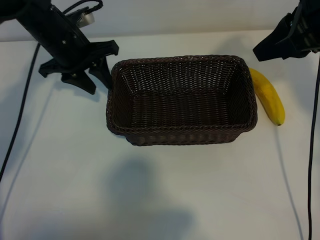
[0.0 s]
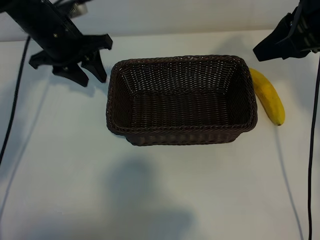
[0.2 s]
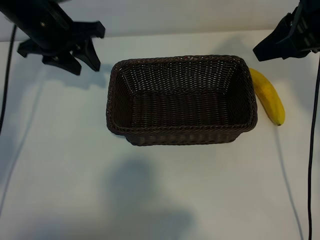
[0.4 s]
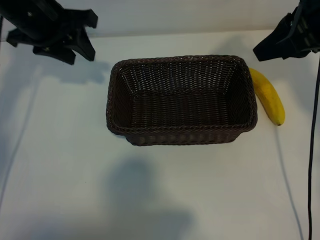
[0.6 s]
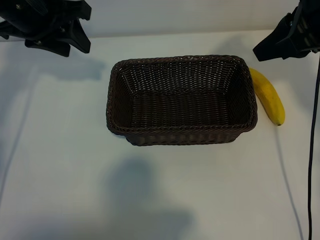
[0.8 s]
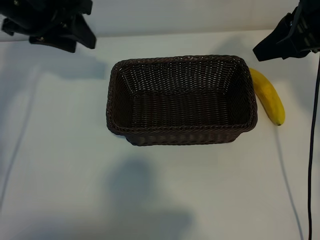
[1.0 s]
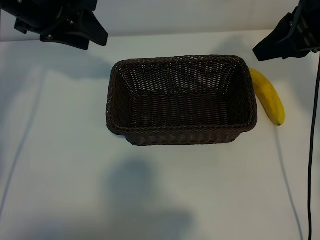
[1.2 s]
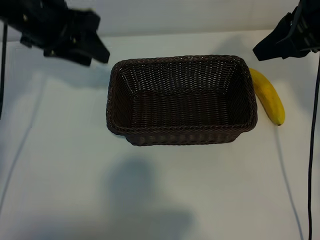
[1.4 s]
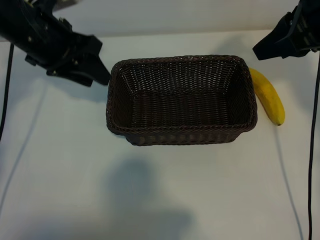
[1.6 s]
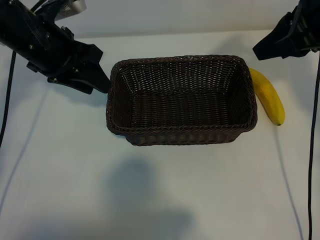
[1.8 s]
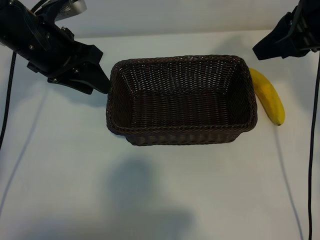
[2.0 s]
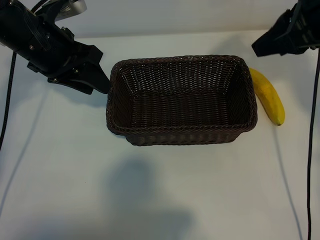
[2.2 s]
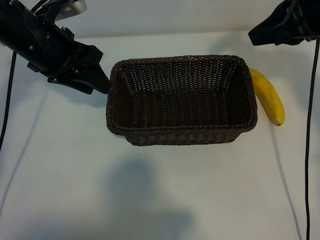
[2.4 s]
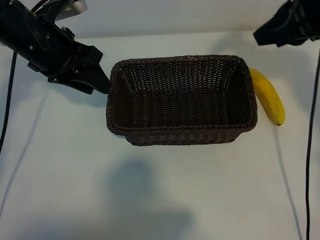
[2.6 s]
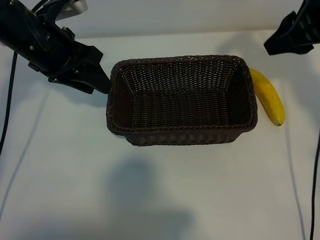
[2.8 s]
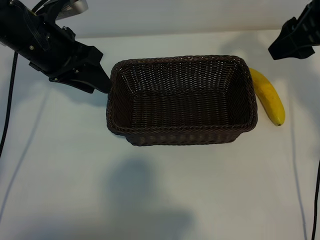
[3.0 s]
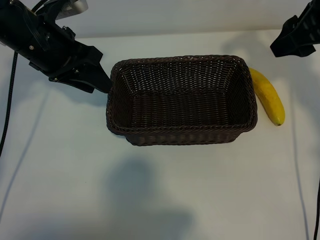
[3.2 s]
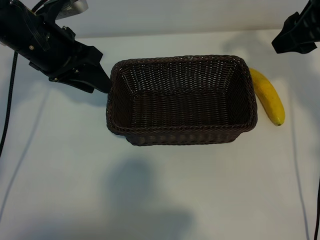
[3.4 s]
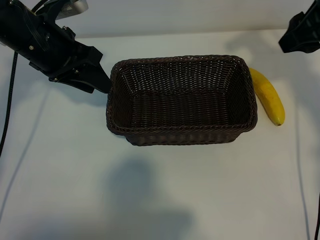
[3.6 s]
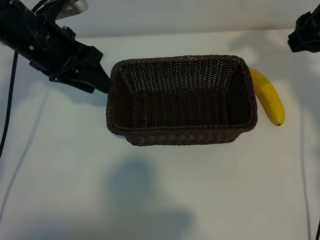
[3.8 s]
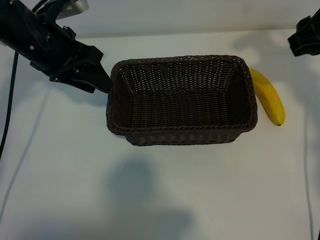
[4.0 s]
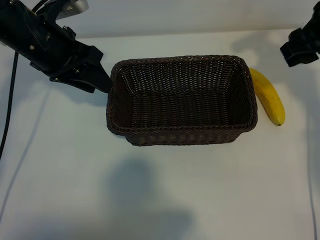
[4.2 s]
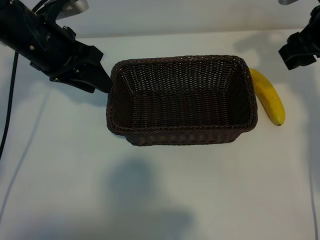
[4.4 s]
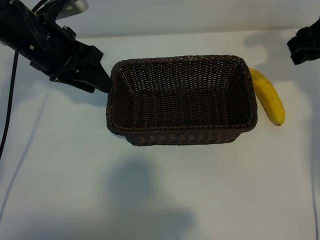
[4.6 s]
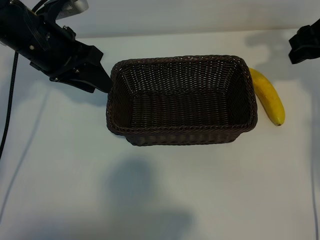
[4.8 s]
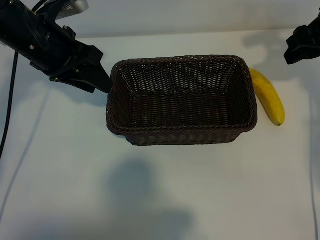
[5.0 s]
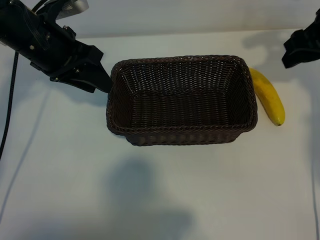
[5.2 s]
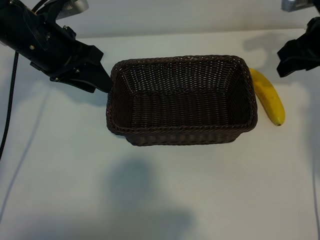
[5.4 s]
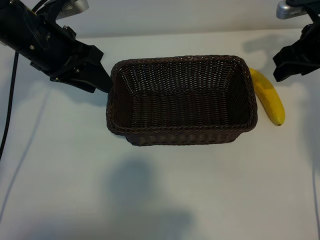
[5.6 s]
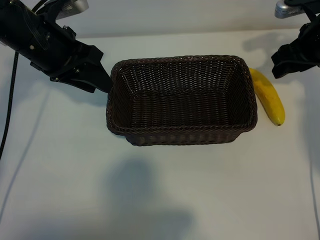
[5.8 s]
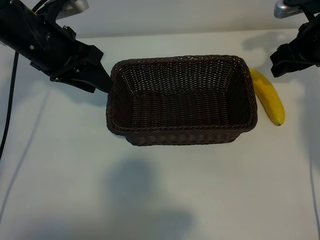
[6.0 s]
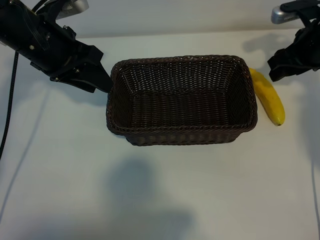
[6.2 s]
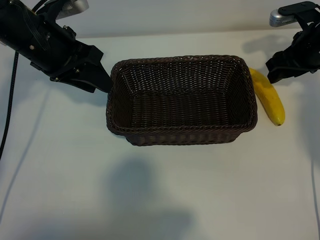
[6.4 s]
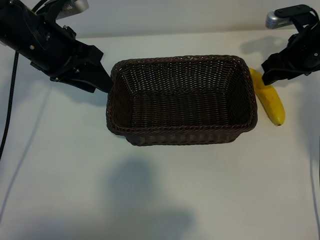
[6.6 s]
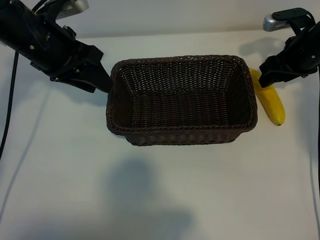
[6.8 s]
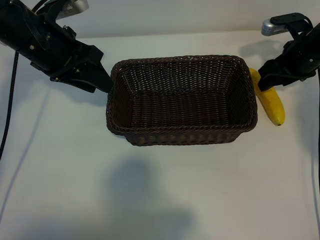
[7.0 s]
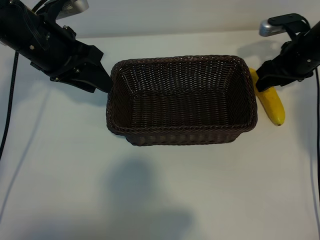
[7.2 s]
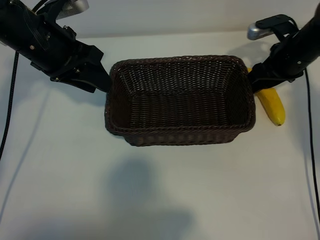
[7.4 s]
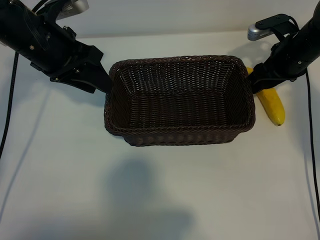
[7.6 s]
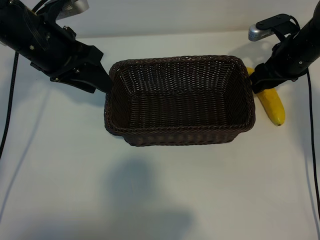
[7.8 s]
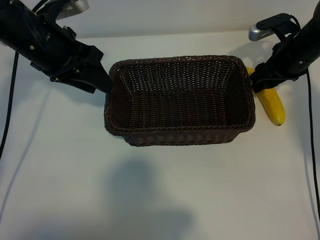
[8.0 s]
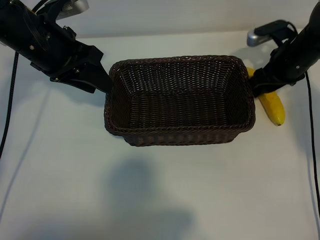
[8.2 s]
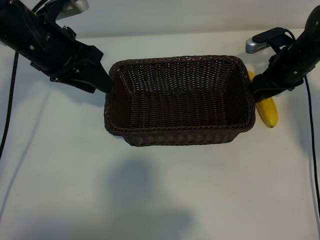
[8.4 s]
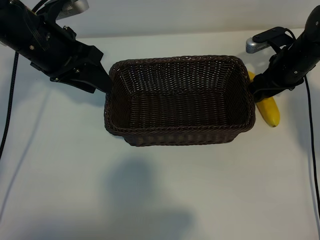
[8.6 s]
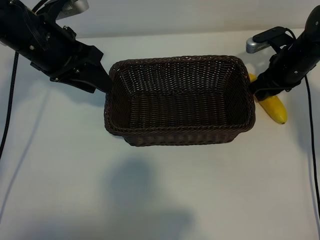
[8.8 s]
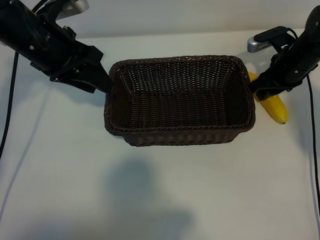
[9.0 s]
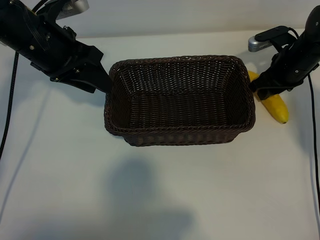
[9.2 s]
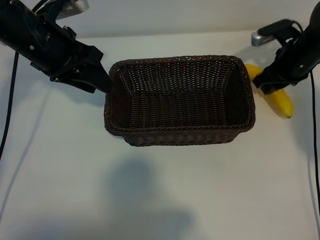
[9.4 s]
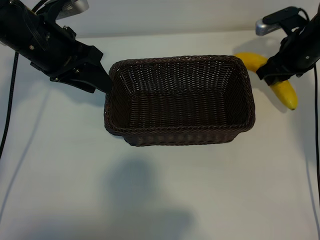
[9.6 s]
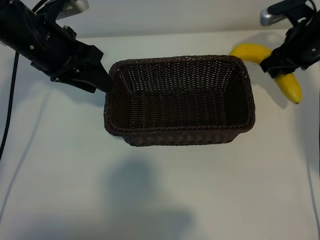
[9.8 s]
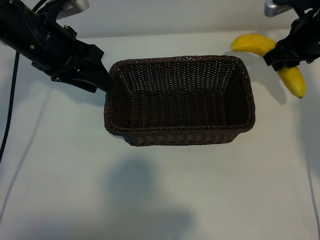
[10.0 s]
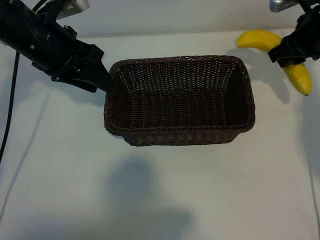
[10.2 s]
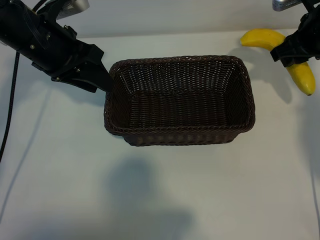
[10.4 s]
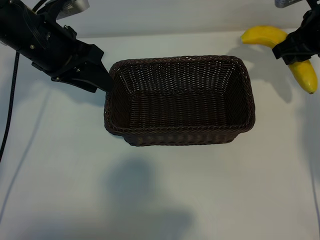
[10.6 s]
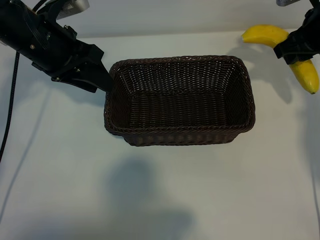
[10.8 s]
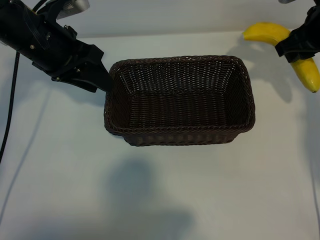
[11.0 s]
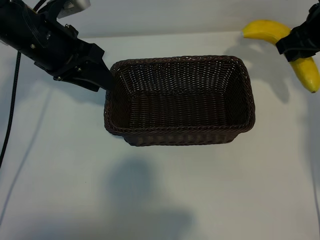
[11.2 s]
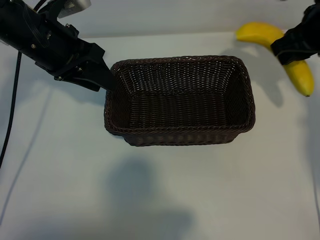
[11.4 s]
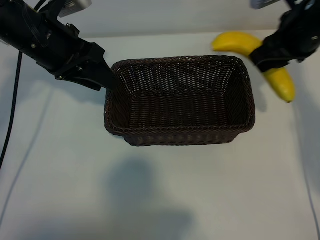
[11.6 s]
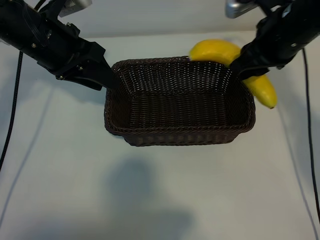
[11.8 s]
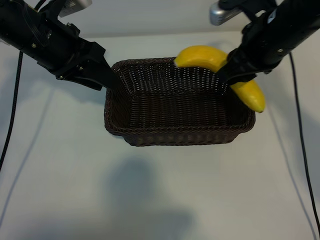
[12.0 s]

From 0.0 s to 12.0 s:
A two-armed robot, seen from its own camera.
Task of the whole recording: pick up the banana and put it into the basket.
Step, from 0.0 s to 8.8 s: Grasp the banana with right gripper.

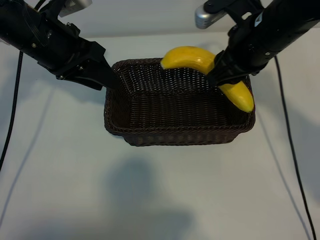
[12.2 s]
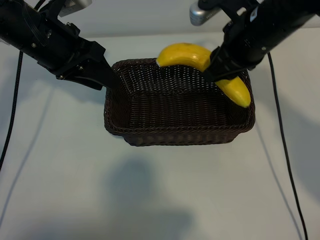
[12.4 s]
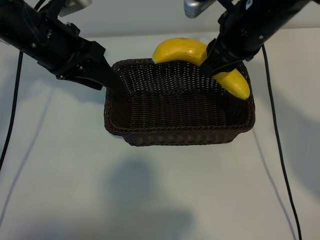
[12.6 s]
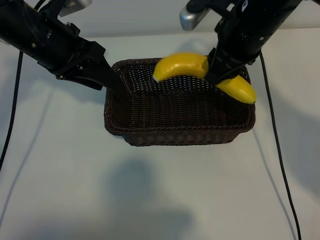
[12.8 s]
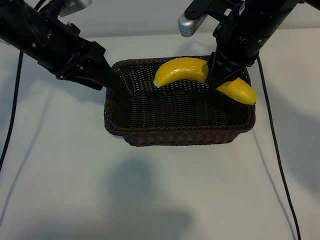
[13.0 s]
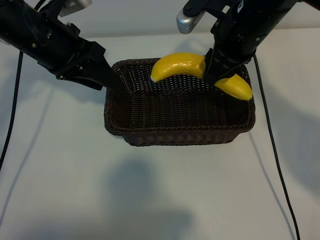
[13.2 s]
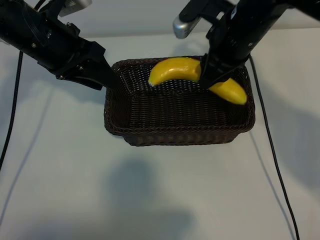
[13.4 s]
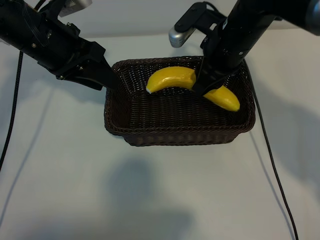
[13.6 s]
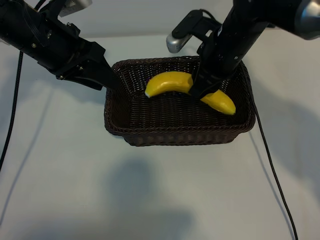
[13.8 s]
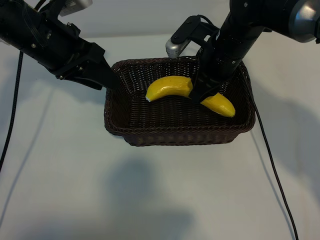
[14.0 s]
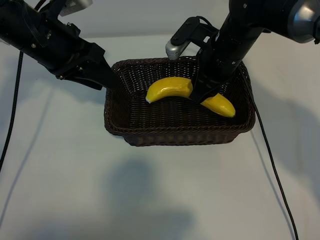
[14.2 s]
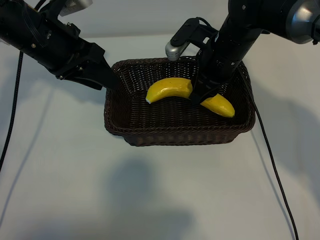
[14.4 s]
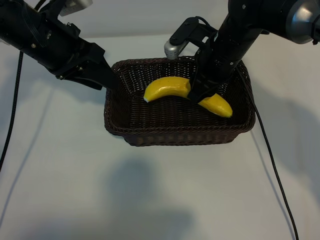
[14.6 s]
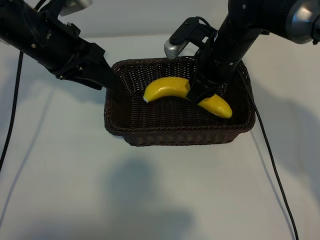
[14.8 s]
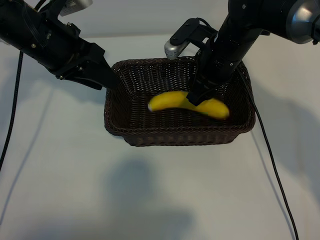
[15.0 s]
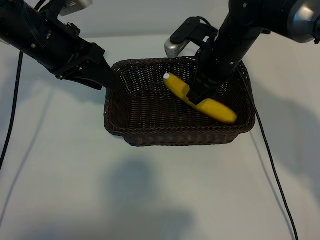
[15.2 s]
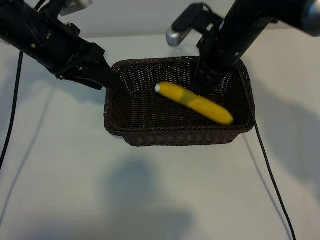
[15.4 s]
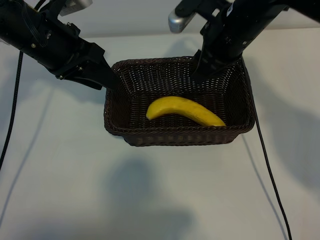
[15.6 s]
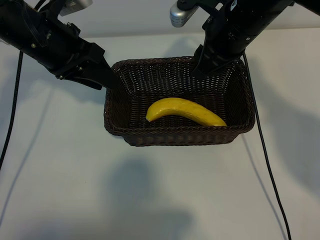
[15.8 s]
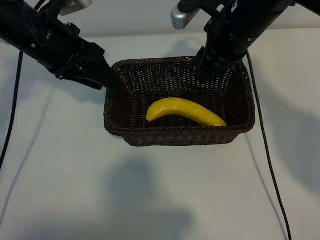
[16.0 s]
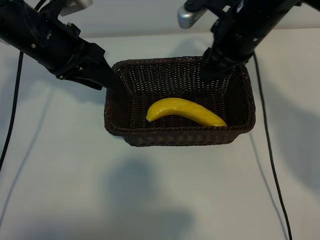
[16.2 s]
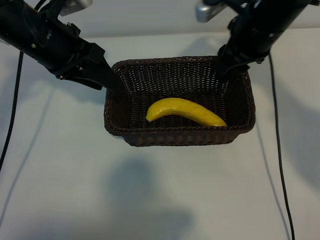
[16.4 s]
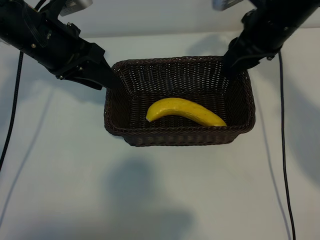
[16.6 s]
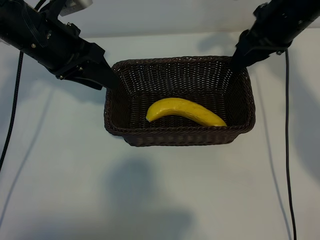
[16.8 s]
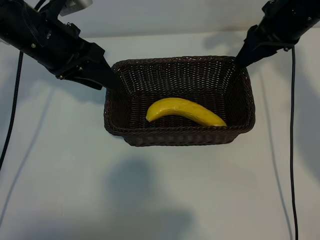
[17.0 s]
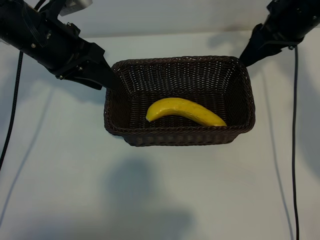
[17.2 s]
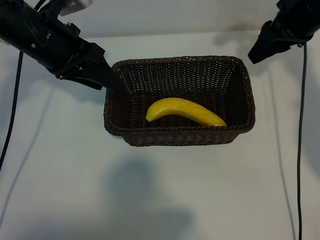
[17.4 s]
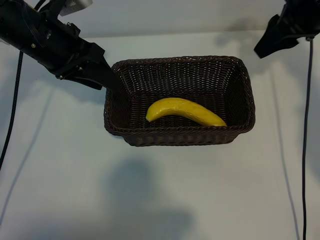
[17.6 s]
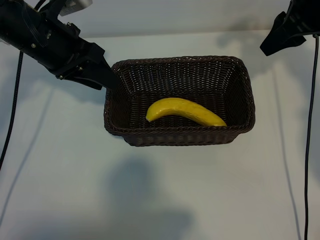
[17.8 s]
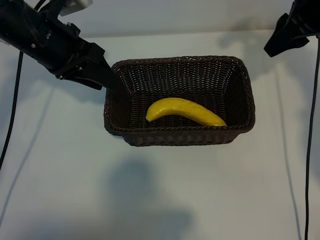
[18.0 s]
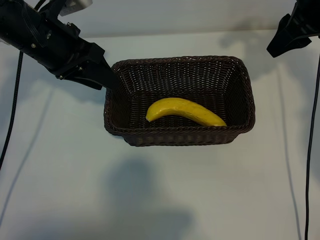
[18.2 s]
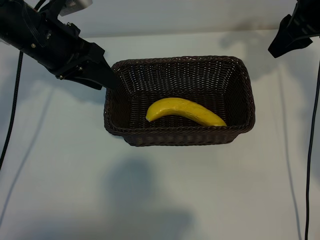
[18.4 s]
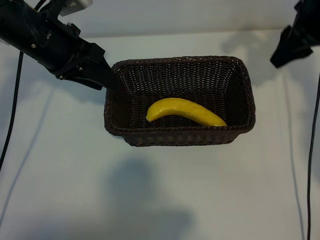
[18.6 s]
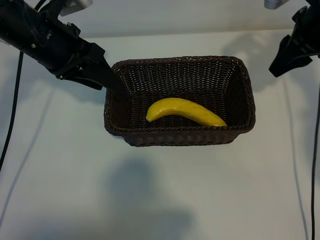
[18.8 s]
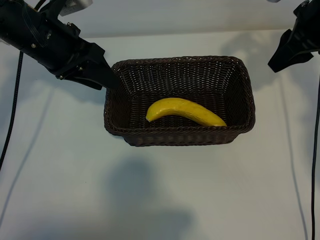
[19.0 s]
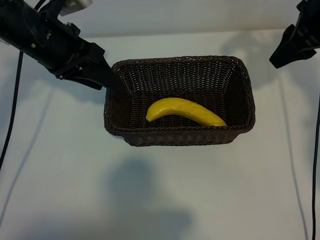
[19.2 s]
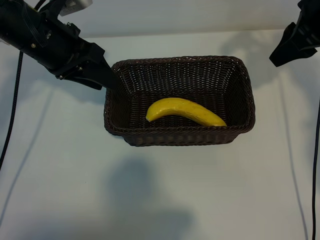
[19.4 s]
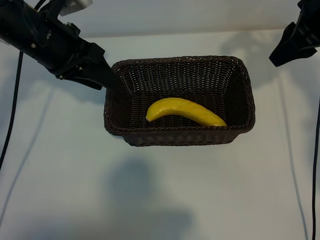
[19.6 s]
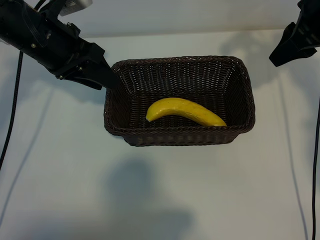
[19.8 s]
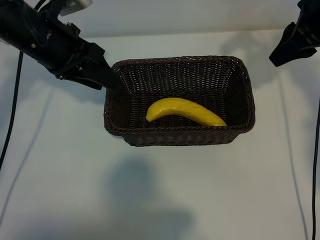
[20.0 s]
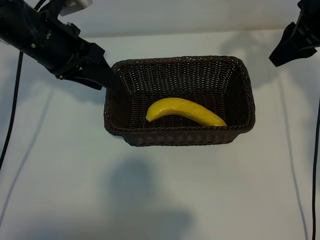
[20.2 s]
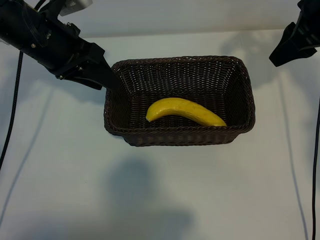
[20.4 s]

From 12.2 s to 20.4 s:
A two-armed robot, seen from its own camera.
Task of the whole recording: pick up the banana and put it into the basket.
Step, from 12.2 s to 15.4 s: Place the banana in the basket with right gripper.
